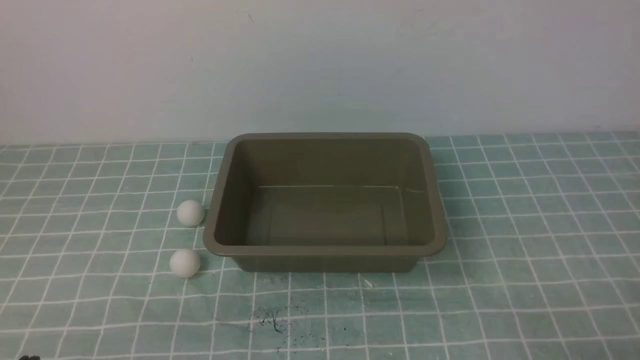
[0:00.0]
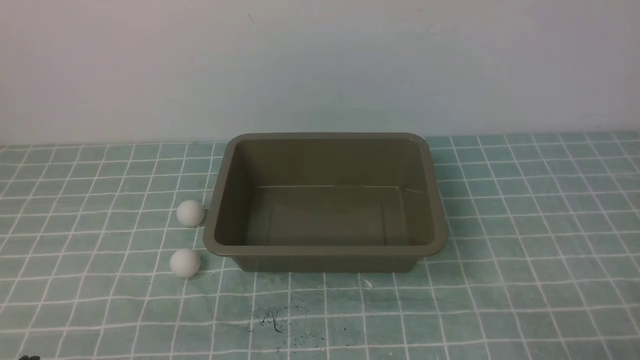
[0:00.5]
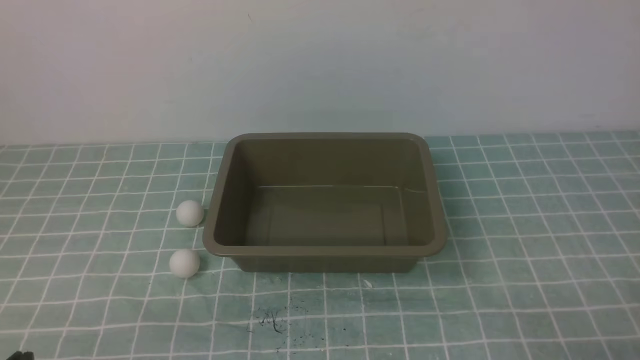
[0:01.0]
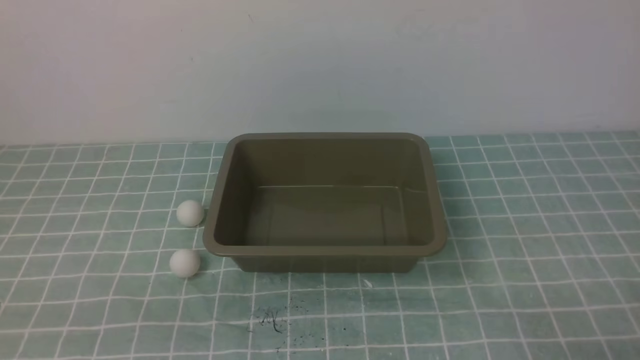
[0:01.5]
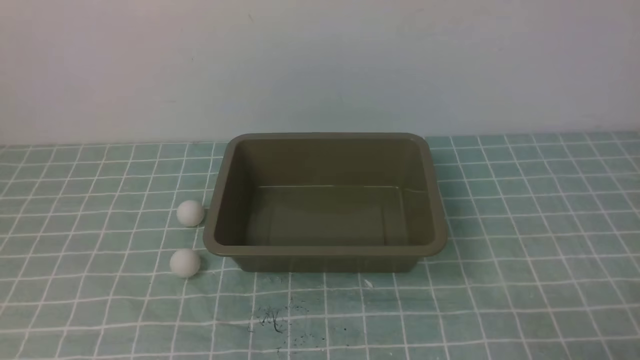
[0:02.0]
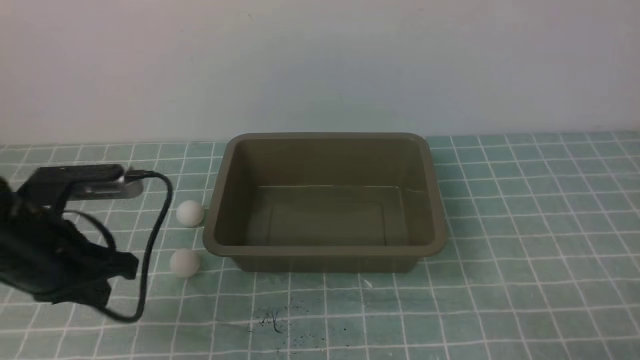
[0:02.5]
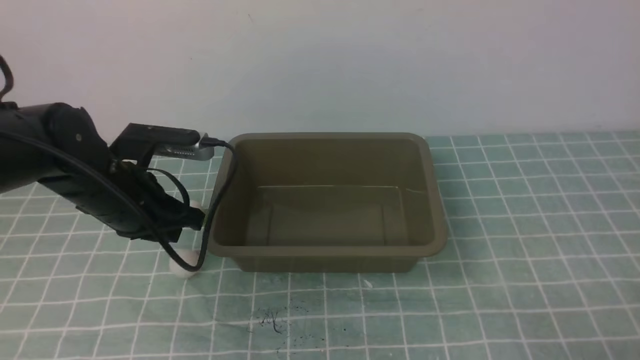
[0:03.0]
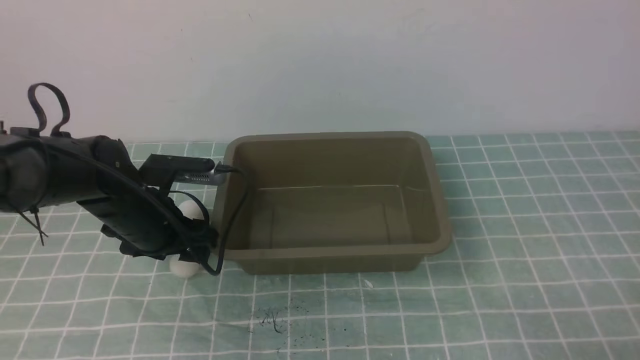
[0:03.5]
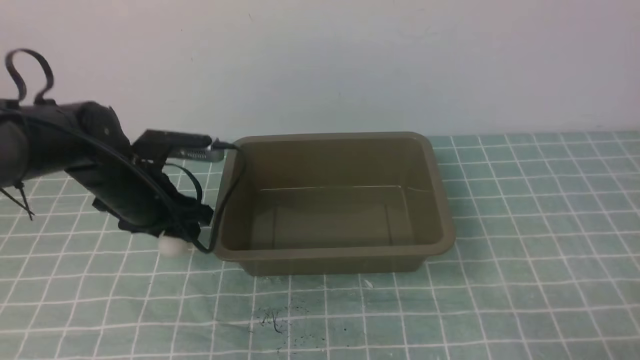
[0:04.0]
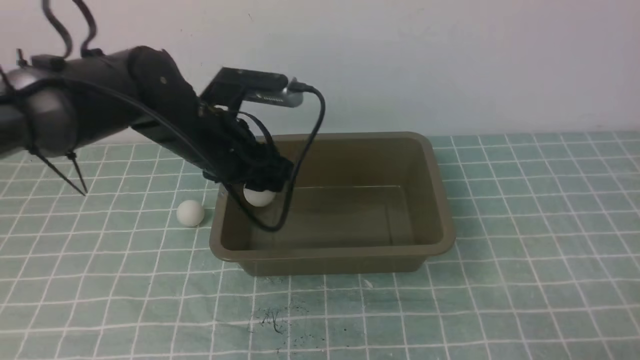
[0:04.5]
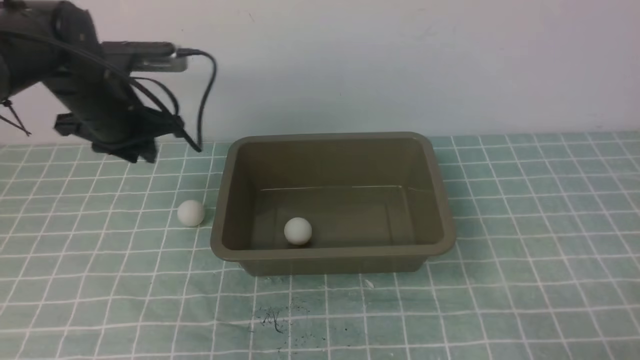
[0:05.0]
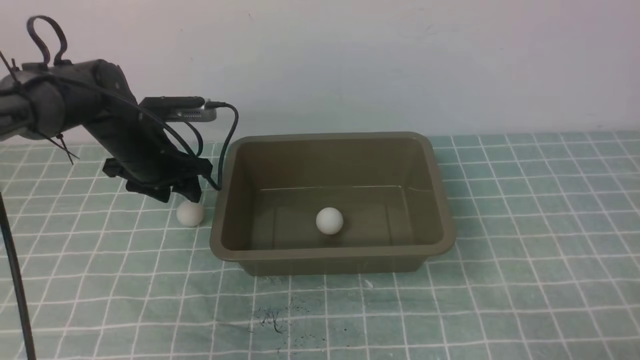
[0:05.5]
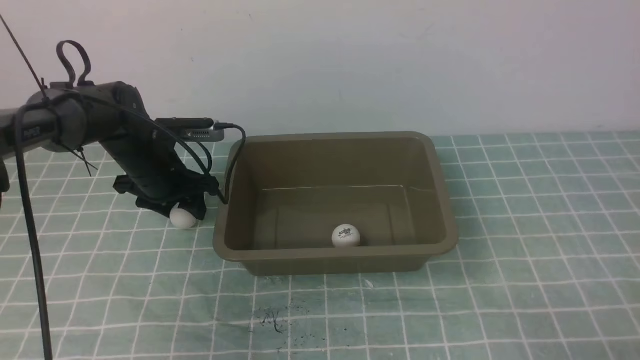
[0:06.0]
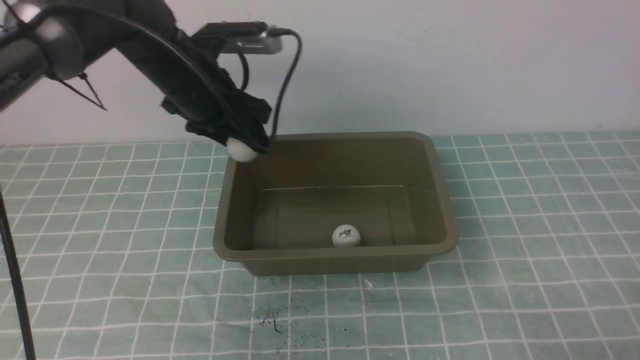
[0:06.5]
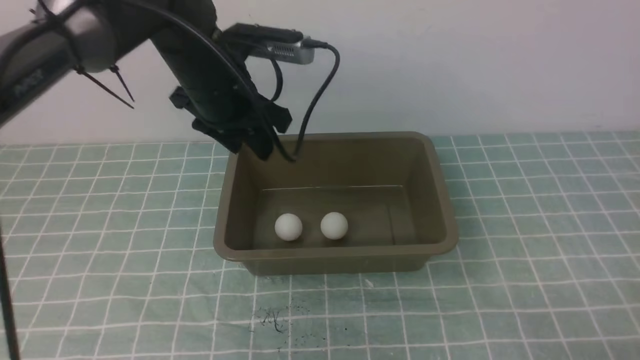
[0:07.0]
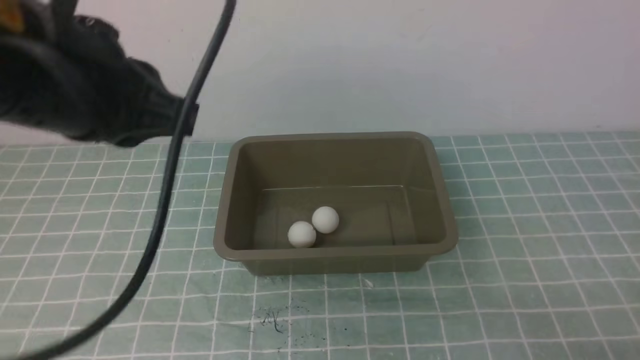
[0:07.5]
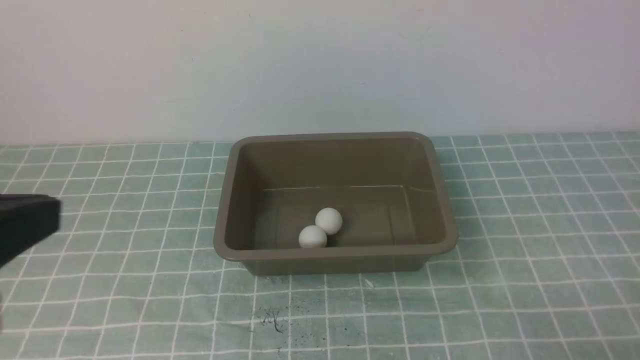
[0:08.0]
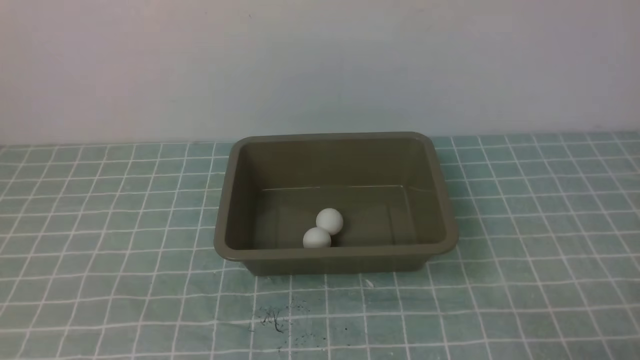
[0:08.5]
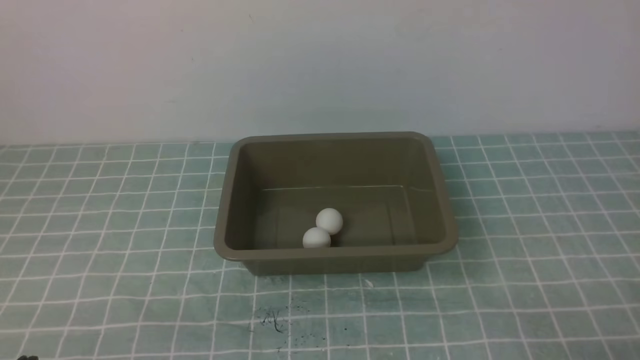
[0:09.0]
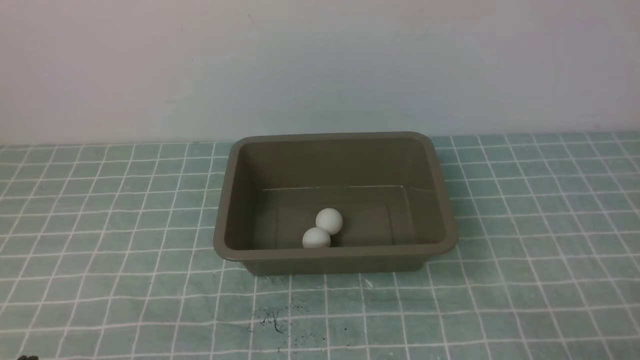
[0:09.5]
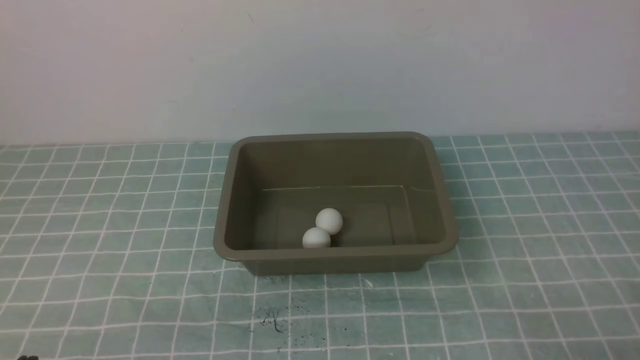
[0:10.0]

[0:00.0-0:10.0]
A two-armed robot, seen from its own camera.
Step, 0:00.0 to 0:04.0: use the left arm to clamp the table tennis ball closest to it.
Step, 0:05.0 to 0:06.0: use the left arm to clamp the table tennis ball closest to it.
Step, 0:06.5 to 0:07.0: use the left arm to put the table tennis ball into the box.
0:02.0 to 0:04.0: The left gripper shifts approximately 30 cm forward, and opens its fingers.
0:04.0 to 0:06.0: The left gripper shifts approximately 10 cm forward, and goes upward and returns, about 10 cm each way.
0:06.0 to 0:08.0: The left gripper goes approximately 40 cm backward and upward, and closes up.
0:08.0 to 0:10.0: The left gripper is displaced downward by some 20 cm.
